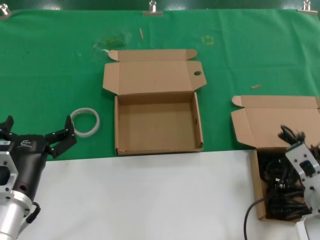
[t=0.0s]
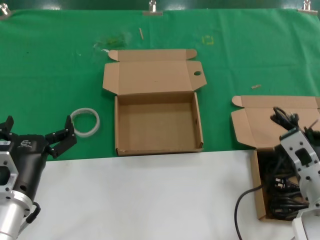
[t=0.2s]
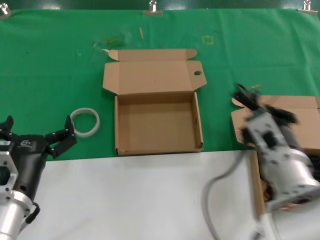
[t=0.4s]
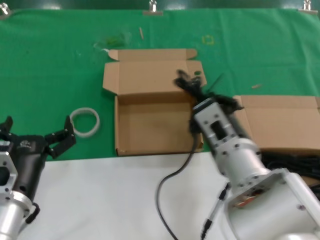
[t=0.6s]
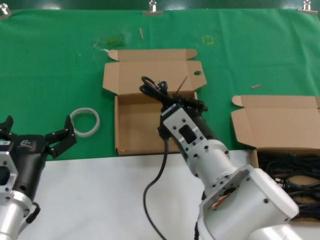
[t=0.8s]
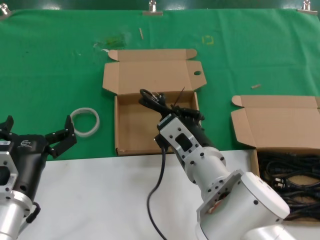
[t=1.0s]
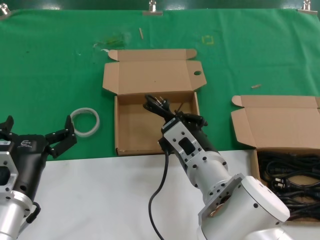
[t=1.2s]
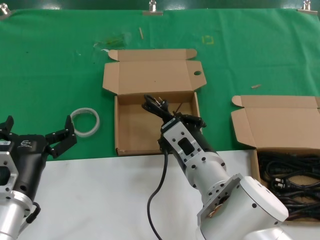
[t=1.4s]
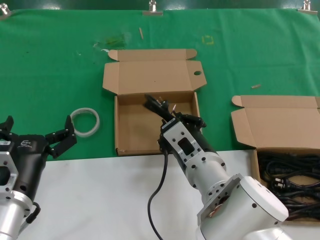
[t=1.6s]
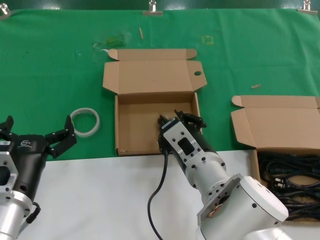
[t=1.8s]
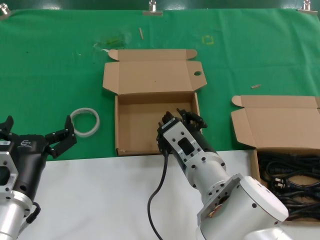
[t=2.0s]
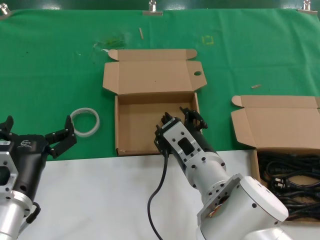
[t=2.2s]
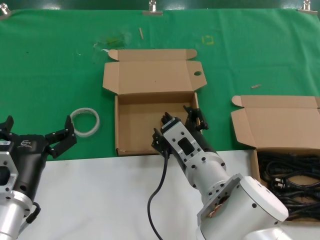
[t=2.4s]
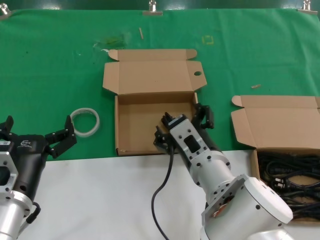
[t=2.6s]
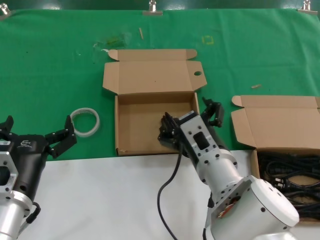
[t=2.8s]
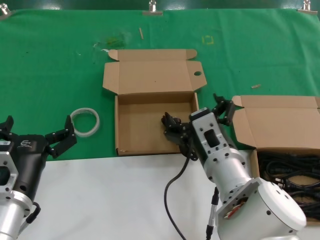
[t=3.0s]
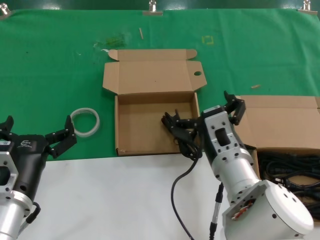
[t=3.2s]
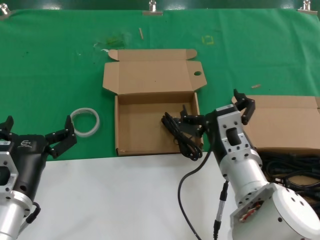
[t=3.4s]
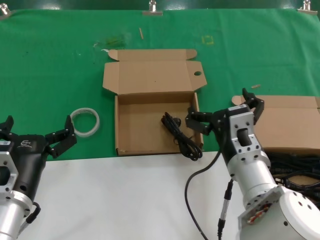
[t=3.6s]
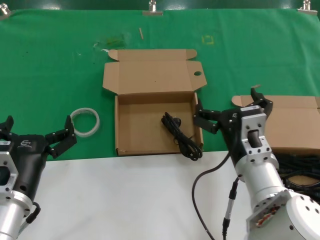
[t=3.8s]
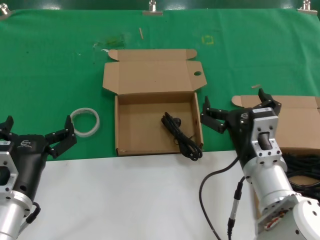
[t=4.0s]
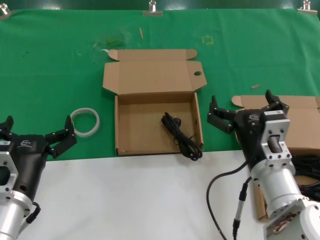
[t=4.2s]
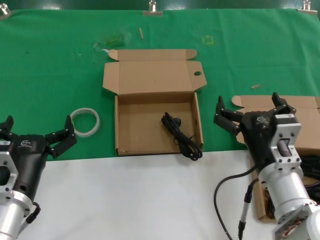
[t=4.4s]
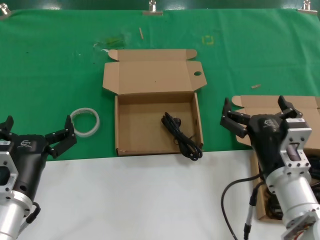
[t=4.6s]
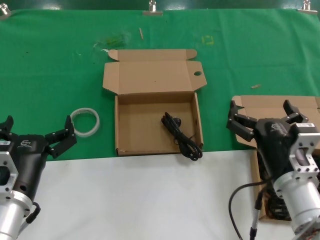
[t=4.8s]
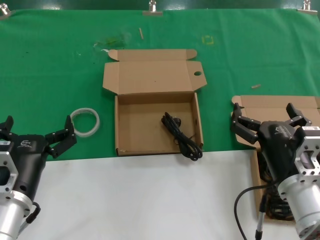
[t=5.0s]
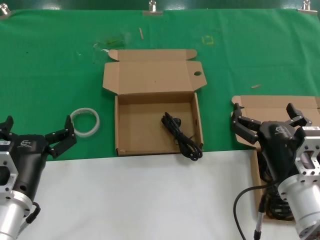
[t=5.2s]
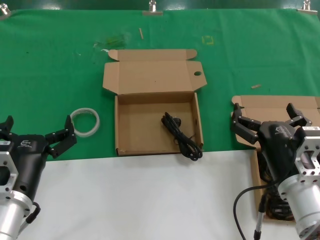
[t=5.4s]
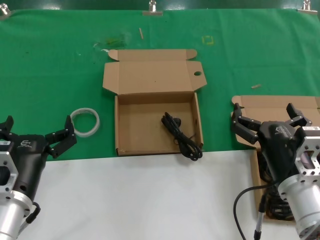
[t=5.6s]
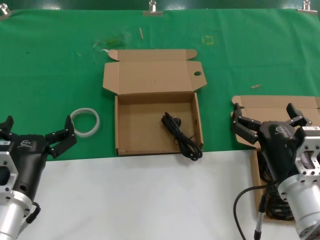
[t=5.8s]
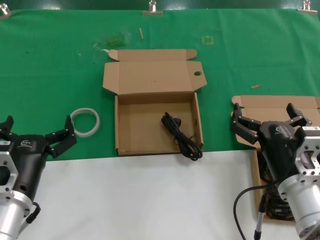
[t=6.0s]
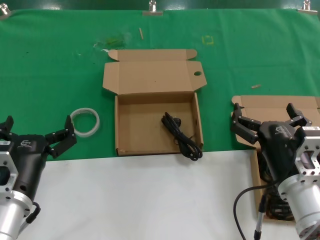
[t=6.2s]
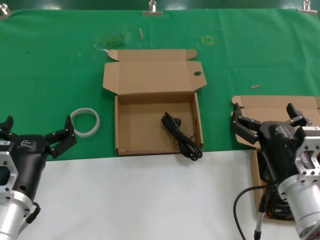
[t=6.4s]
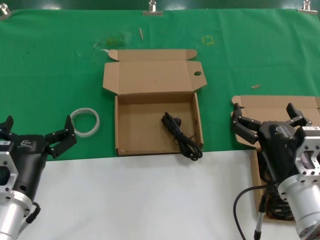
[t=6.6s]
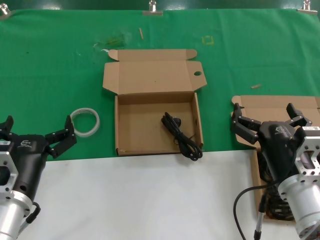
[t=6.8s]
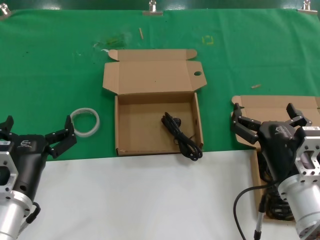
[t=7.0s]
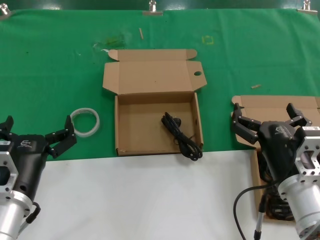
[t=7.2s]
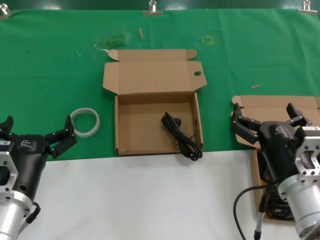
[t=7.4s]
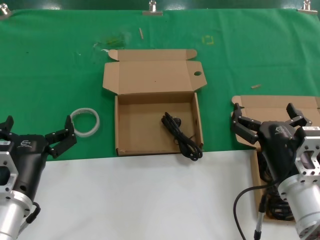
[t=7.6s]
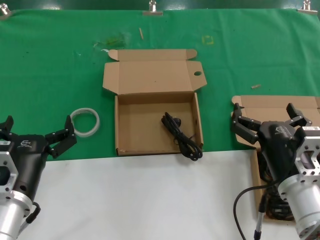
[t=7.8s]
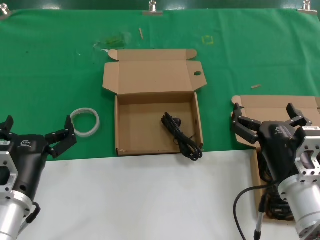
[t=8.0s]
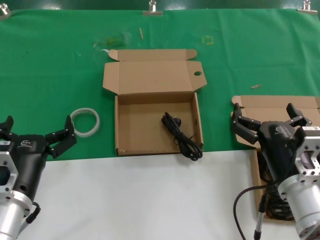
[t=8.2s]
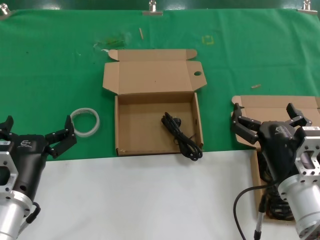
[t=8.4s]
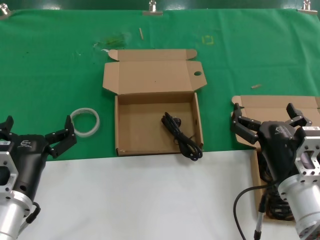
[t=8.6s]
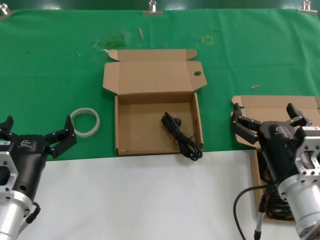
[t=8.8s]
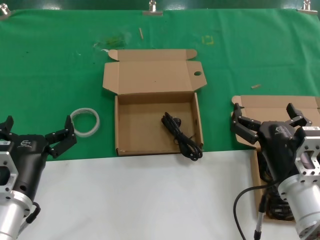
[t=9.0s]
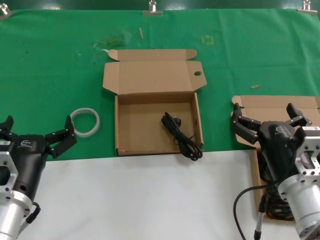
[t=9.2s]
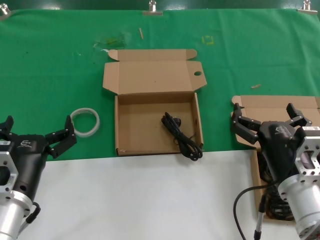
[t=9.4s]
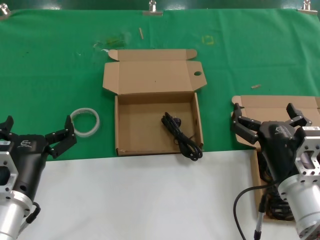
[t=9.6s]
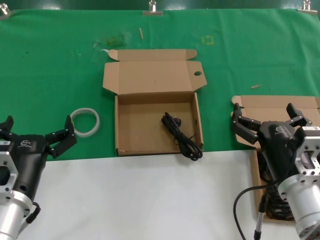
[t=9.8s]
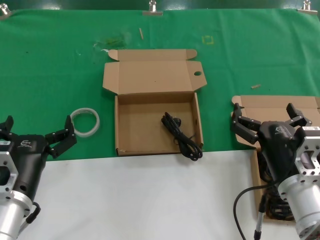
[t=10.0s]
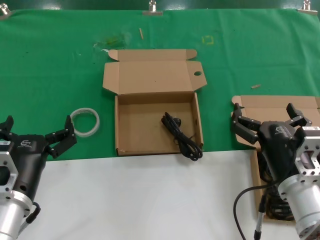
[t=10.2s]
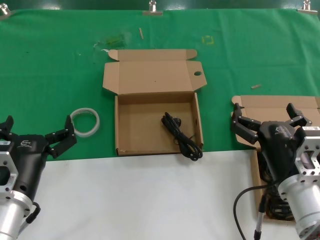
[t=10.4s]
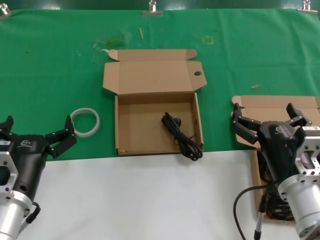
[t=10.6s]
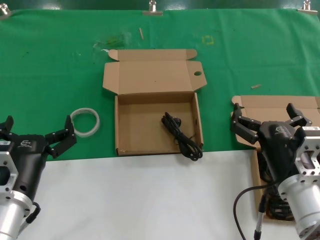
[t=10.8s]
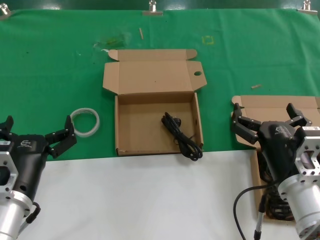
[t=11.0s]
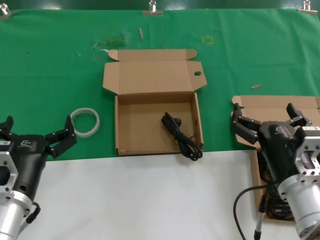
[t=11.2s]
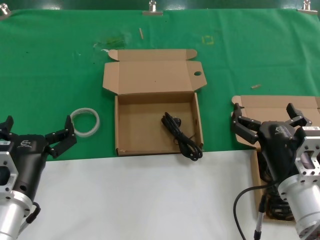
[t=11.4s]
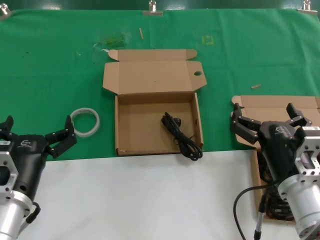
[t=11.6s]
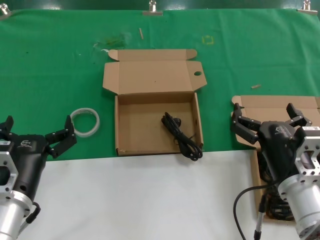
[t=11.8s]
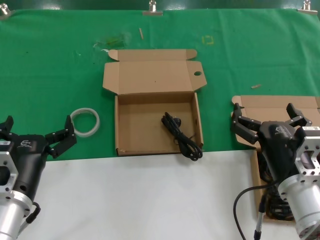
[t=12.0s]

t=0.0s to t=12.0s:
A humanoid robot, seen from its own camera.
Task of the whole recording: take the parts from the box containing them and put them into an empty box.
Step, t=0.0s to t=2.4s: Place the data cable in the another box.
t=0.0s to t=1.6s: The right hand moves to the left, about 20 cm.
t=1.6s to t=3.0s: The hands make only small movements.
t=3.0s to t=4.4s: The right hand is displaced to the right by roughly 10 cm.
t=4.4s to t=6.0s: There are only small adjustments of the hands.
t=6.0s to t=12.0s: Both hands stay put.

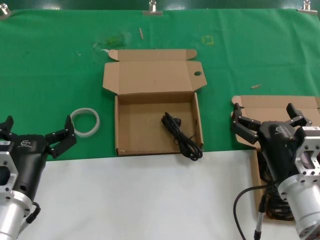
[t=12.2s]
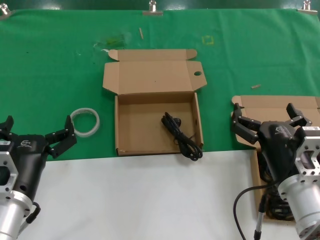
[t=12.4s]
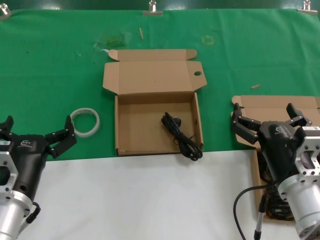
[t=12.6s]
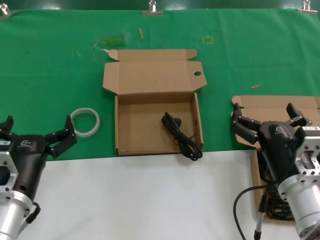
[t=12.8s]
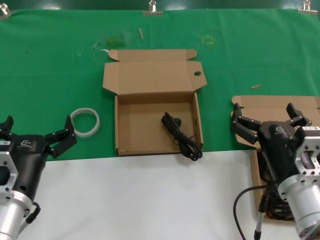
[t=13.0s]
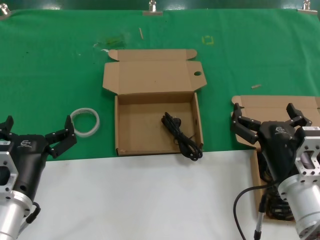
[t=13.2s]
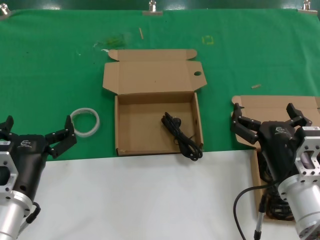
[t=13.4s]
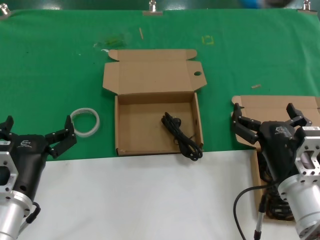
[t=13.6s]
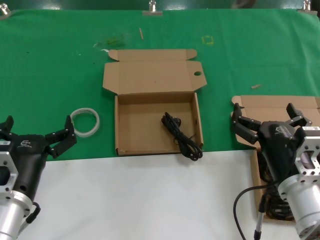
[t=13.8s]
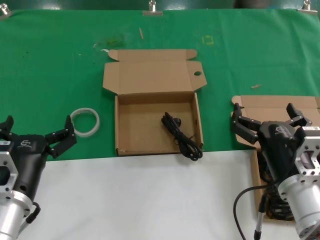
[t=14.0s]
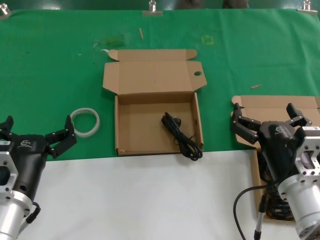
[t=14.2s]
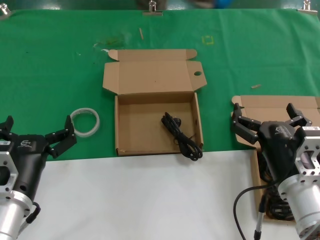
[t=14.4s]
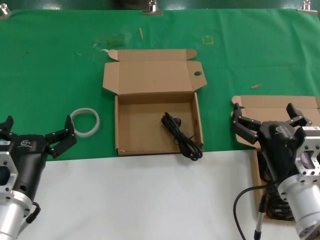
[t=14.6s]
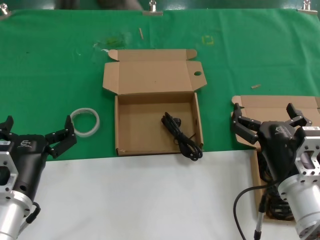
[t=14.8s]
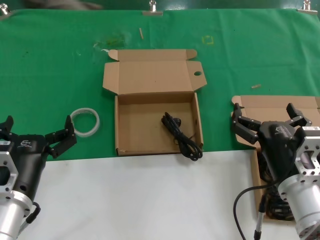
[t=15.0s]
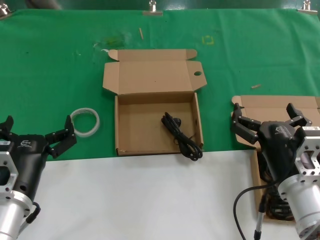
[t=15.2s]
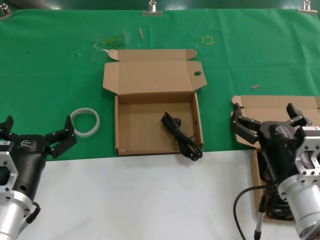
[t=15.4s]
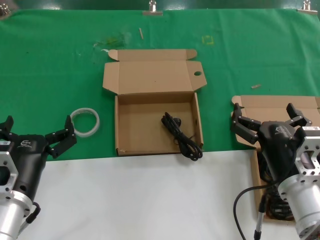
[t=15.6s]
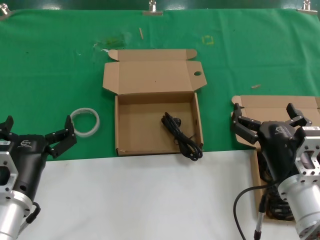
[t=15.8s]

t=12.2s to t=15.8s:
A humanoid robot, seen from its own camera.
Task of the whole recording: take the parts from the box containing them and put them into an empty box.
t=12.2s to t=15.8s: Neither hand changes place.
